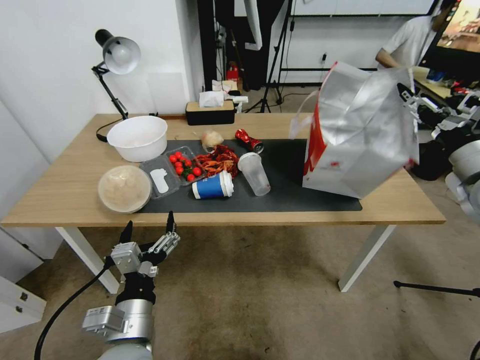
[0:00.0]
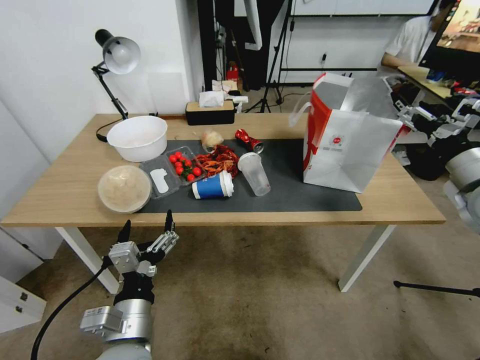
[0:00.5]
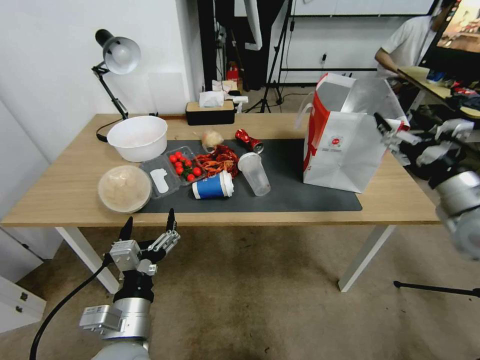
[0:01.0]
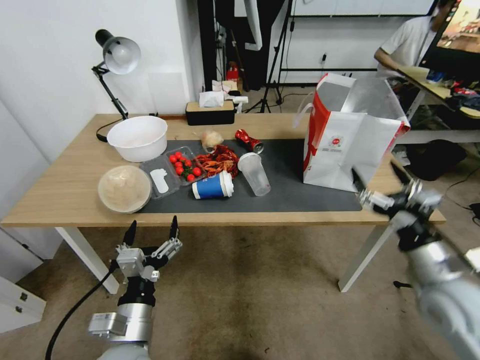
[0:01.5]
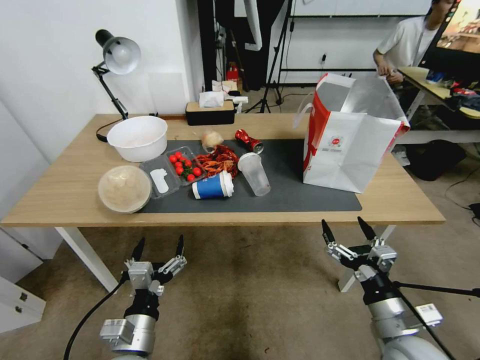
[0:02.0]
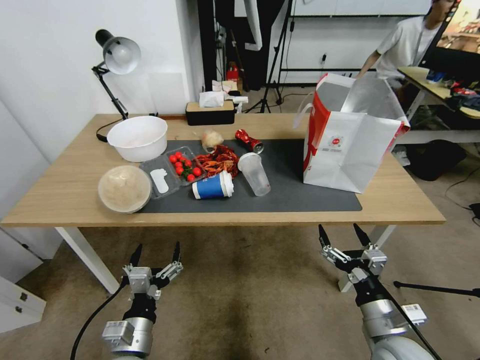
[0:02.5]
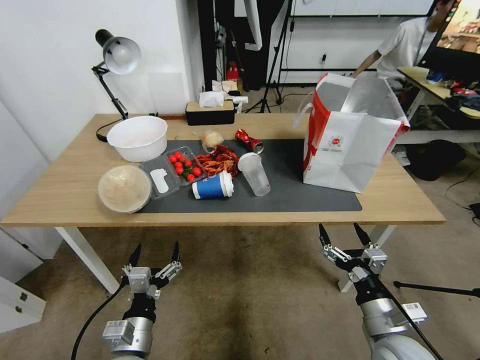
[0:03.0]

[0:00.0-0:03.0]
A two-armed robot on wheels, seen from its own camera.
Task of the whole recording: Pick up the food delivery bag from the floor and place it on the table.
0:00.0 to 0:01.5: The right gripper goes approximately 25 cm downward, backward and to the left.
0:01.5 to 0:03.0: The left gripper goes approximately 5 cm downward, while the right gripper is displaced downward, to the left and backward by roughly 10 cm.

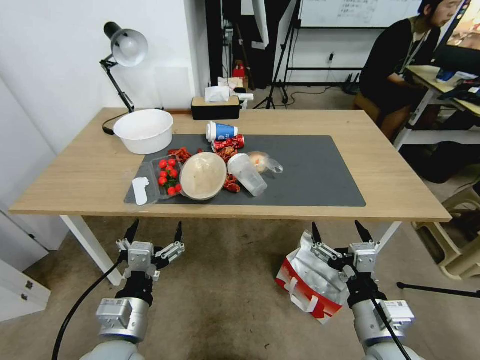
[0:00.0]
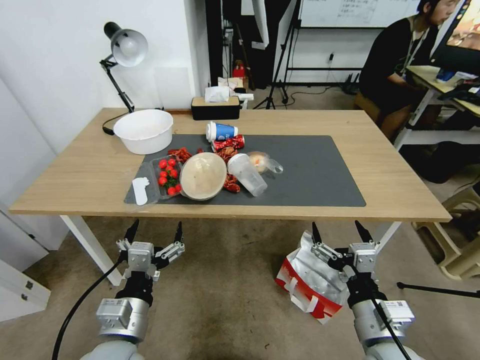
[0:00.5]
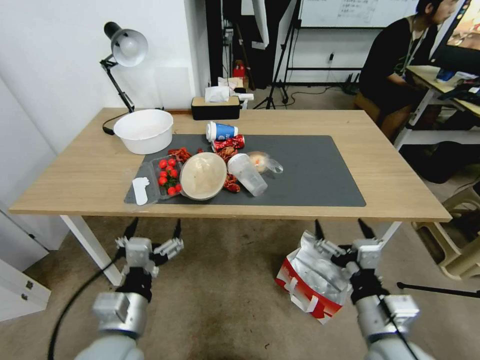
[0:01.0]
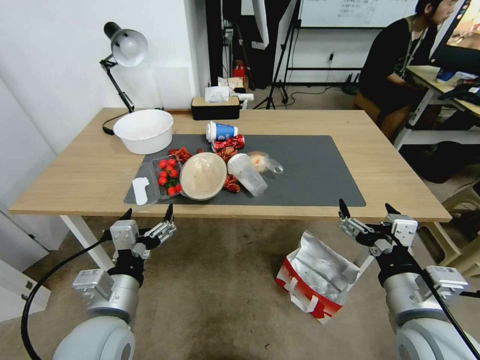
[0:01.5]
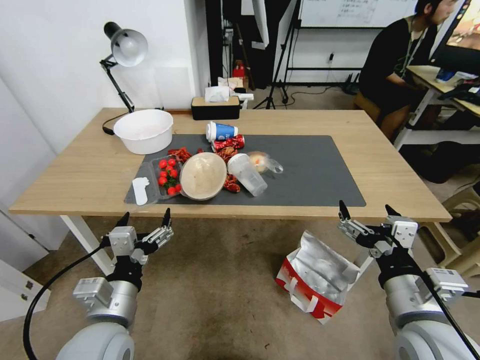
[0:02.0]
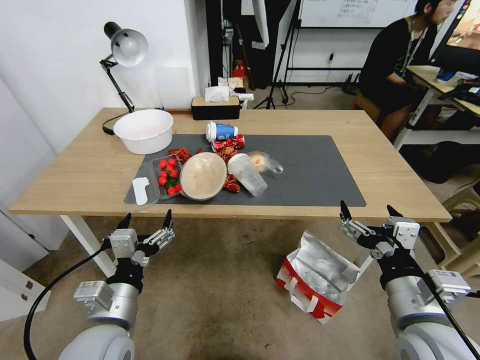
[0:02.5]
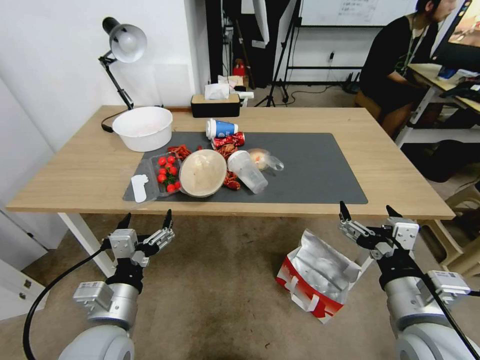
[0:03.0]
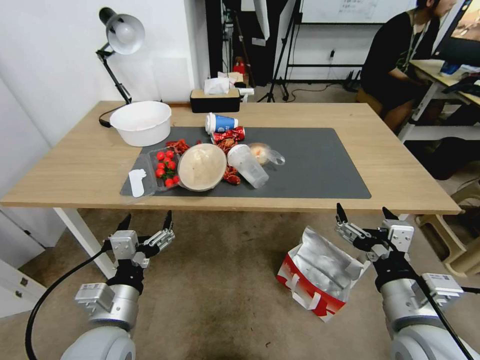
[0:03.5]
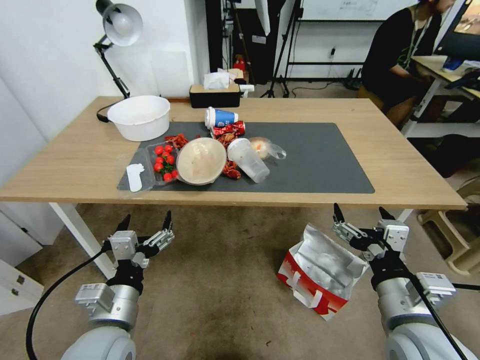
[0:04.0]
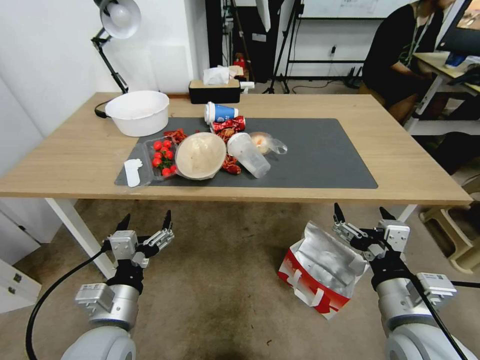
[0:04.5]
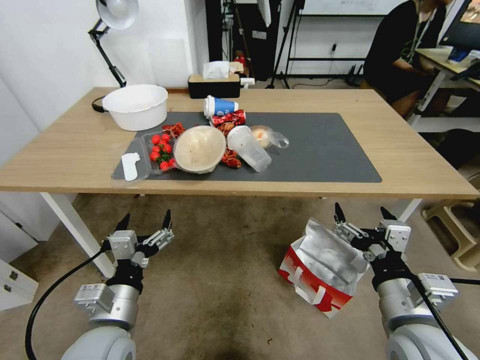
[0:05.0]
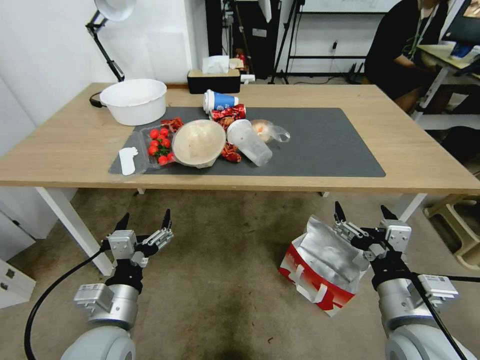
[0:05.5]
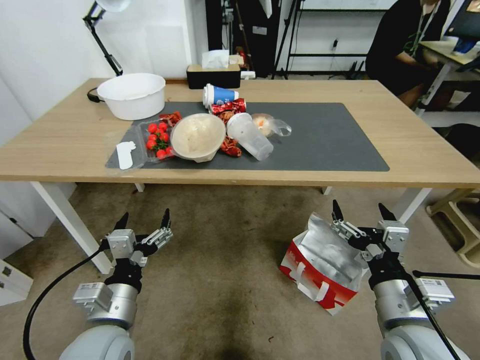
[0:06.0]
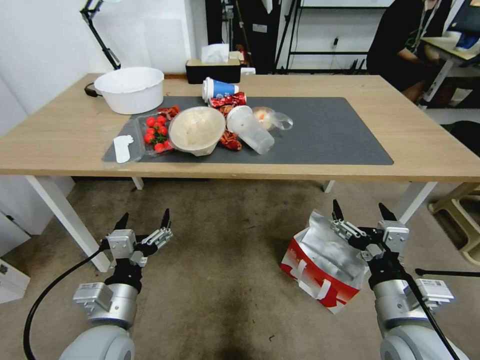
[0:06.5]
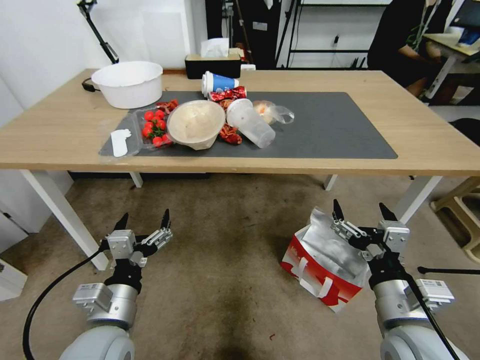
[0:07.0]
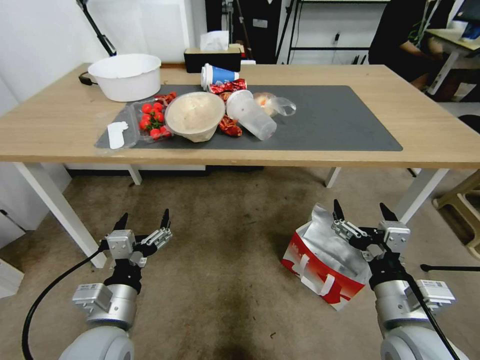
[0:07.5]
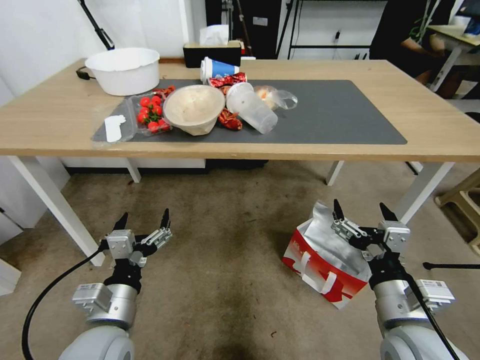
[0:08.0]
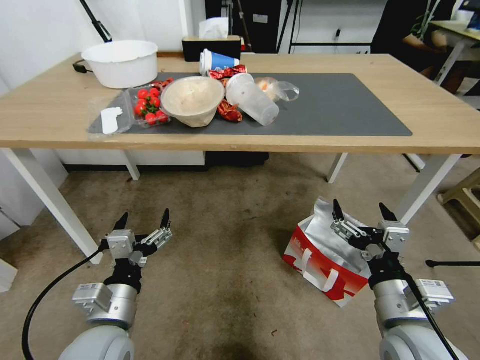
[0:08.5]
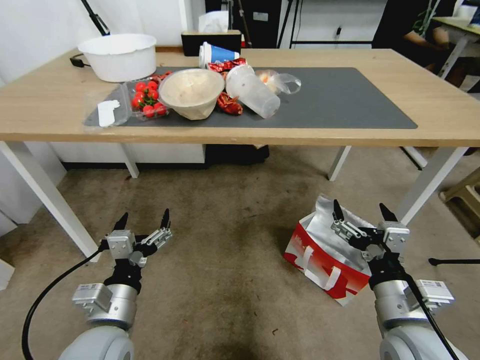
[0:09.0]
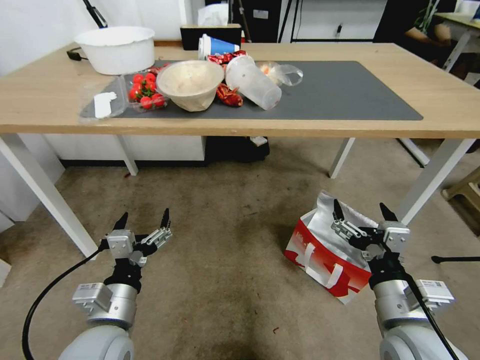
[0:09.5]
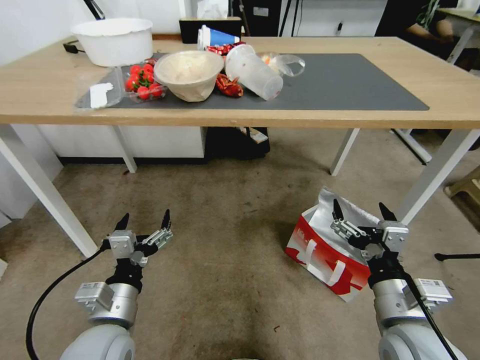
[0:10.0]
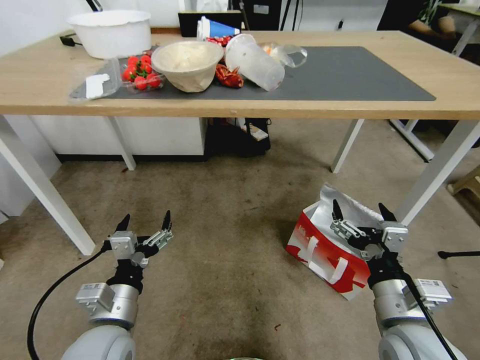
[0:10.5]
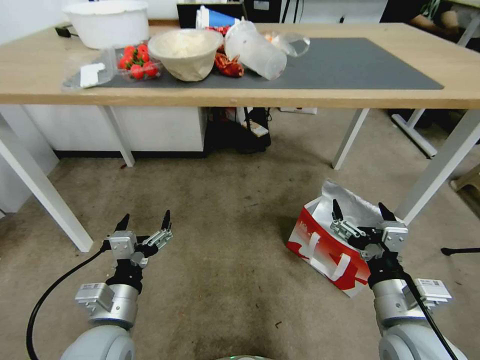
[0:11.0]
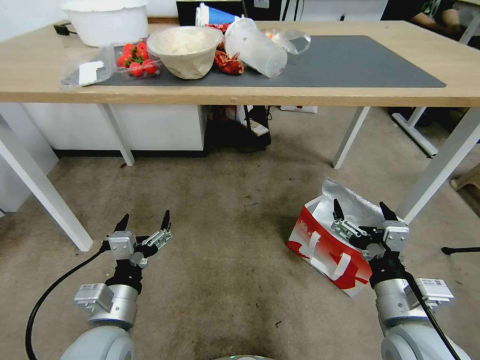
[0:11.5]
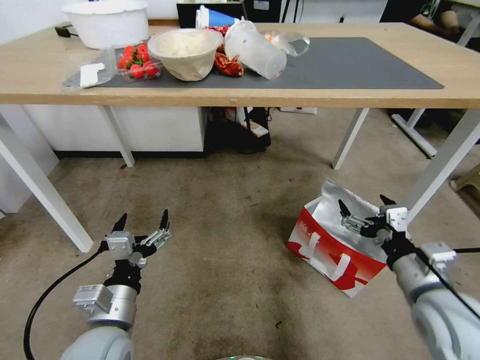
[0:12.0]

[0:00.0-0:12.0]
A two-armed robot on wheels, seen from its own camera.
Task of the whole recording: Pick up the food delivery bag from the floor and place it on the table.
0:10.0 to 0:12.0: The right gripper moves to the right, about 5 cm.

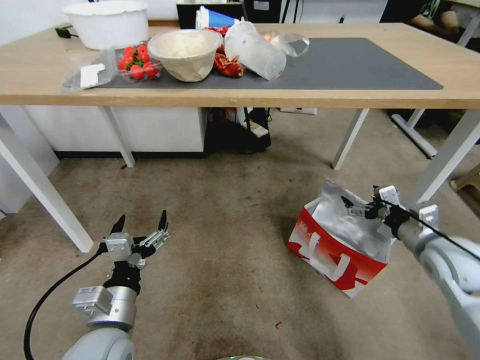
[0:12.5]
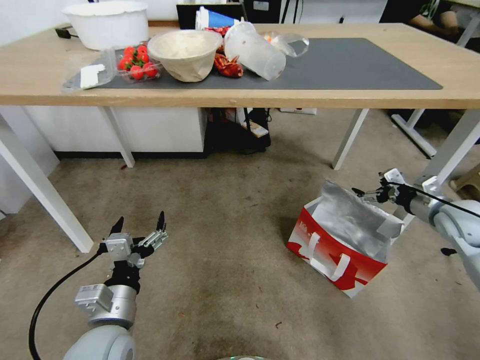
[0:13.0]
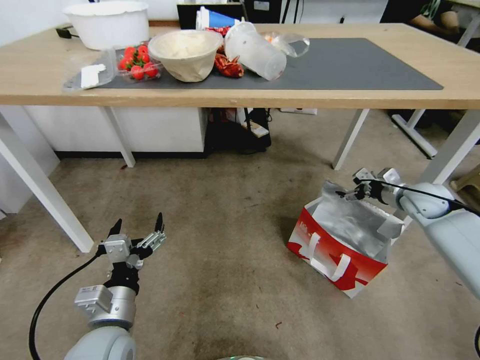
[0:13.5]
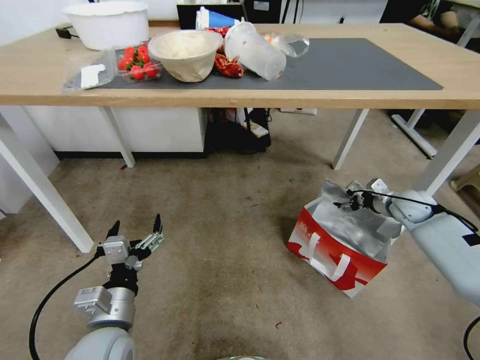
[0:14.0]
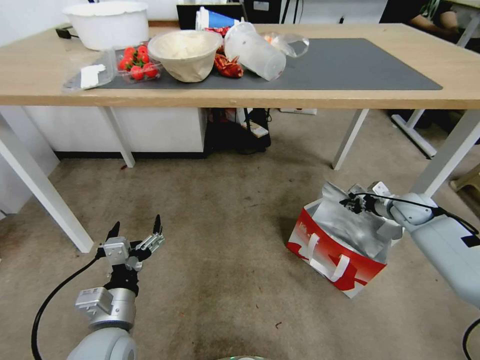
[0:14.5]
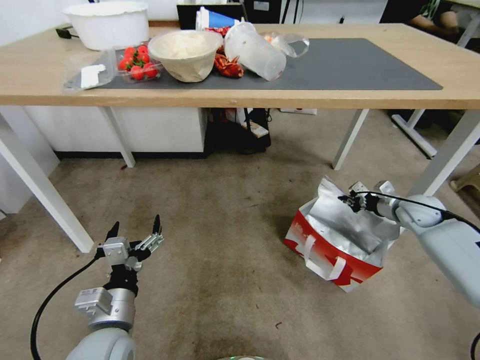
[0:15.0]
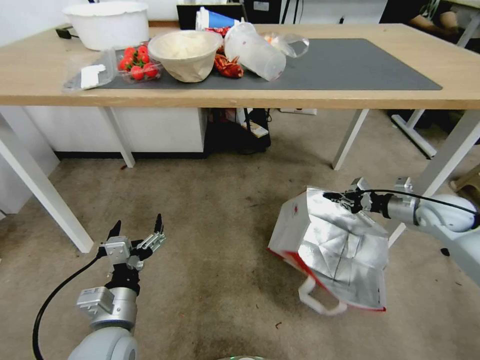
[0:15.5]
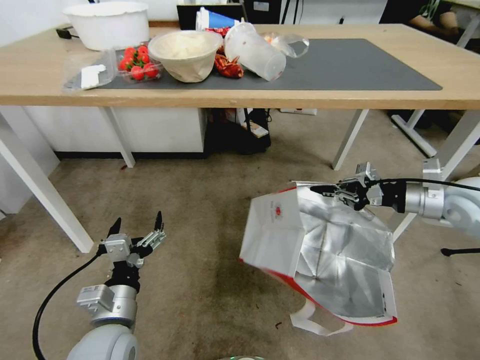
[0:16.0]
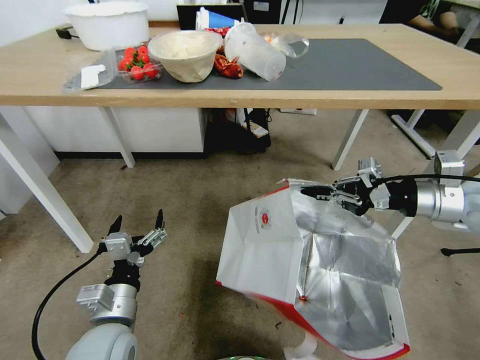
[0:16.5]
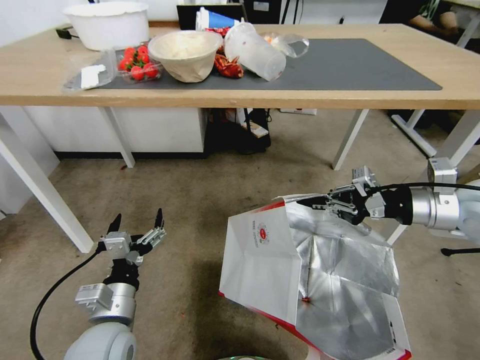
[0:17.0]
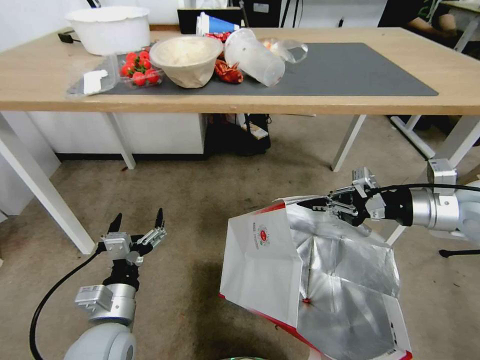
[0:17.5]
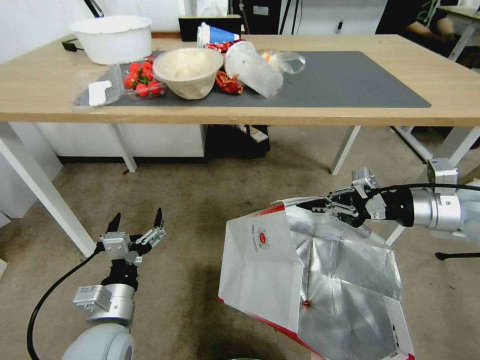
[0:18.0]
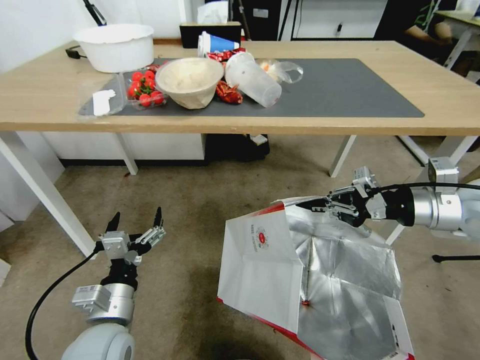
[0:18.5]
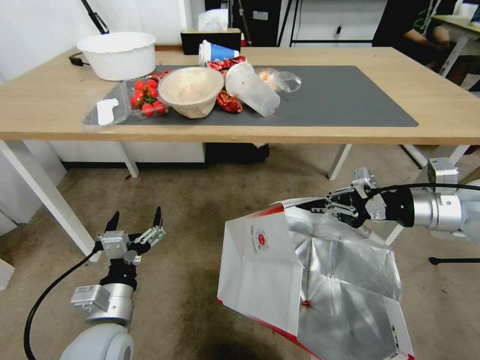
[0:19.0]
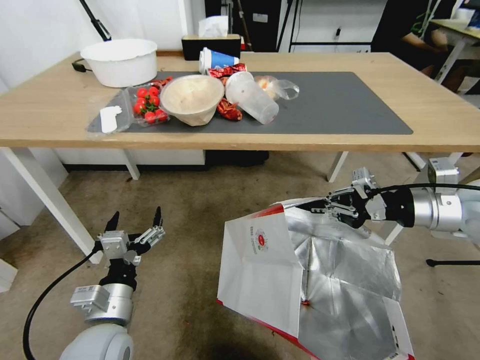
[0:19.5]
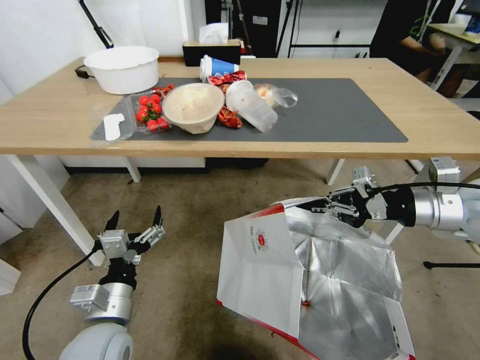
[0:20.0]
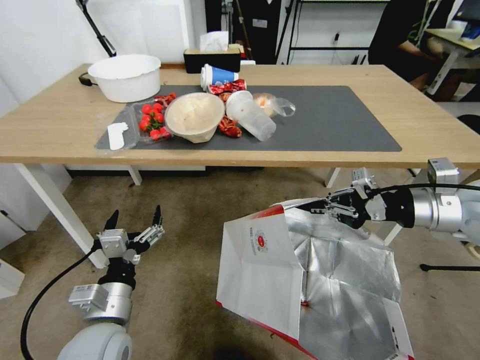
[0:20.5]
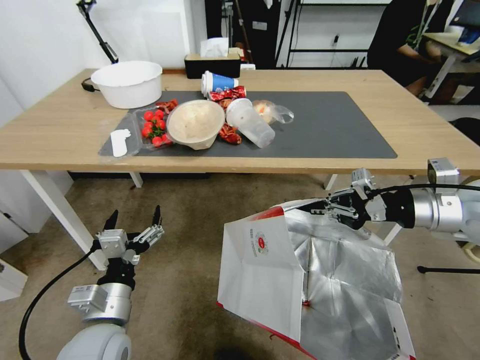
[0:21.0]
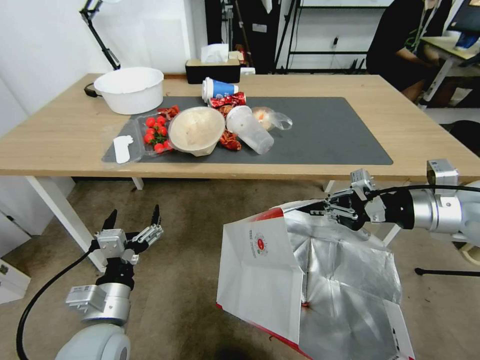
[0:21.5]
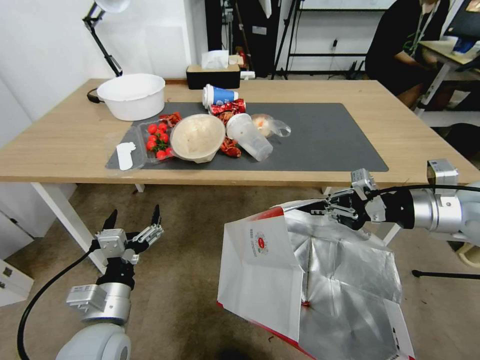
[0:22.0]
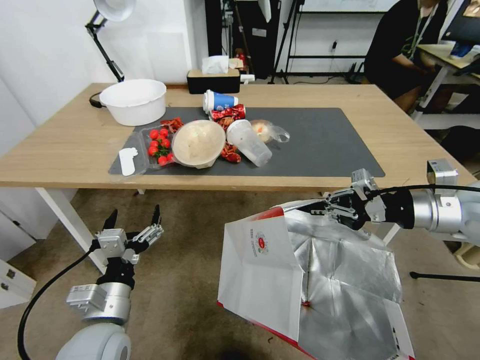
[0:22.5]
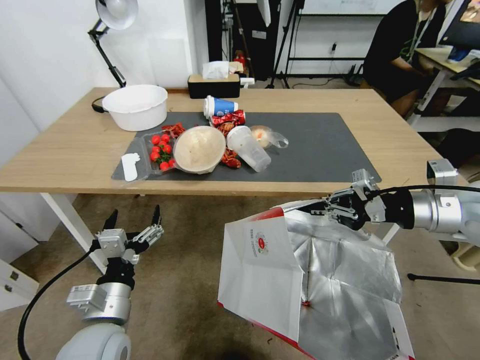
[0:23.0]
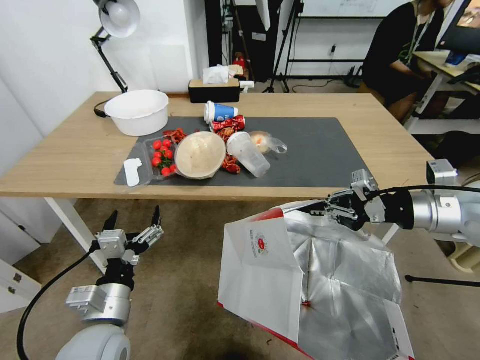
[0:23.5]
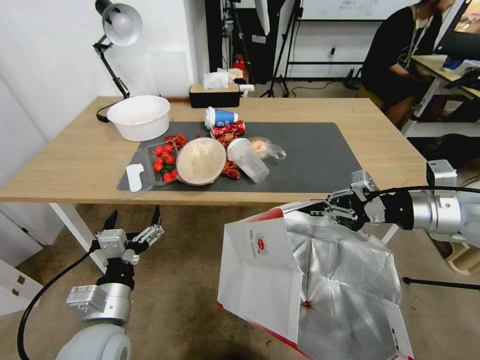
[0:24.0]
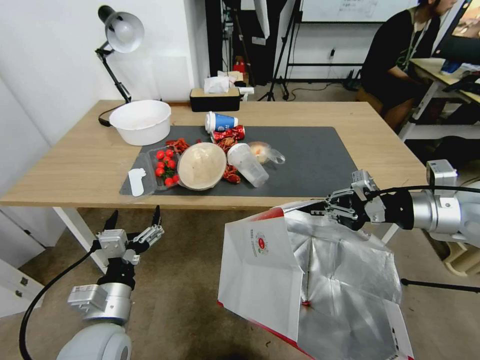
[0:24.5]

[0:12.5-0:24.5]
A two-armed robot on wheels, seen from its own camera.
Task of the whole recording: Pick up the food delivery bag from the floor and place it on the table.
0:12.5 to 0:14.5: The right gripper moves forward and downward, roughly 20 cm, and closes up.
0:14.5 to 0:16.5: The right gripper moves upward and backward, some 25 cm.
